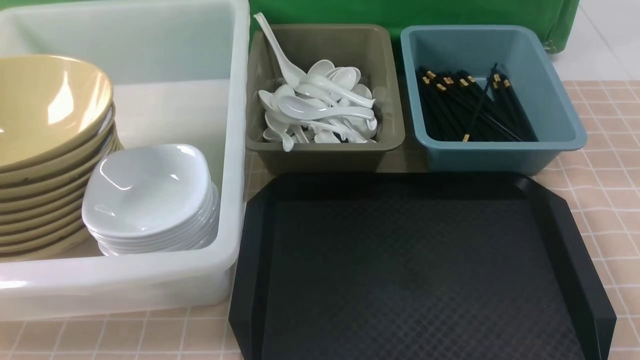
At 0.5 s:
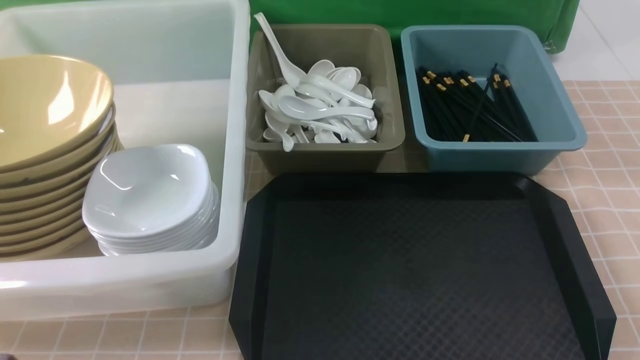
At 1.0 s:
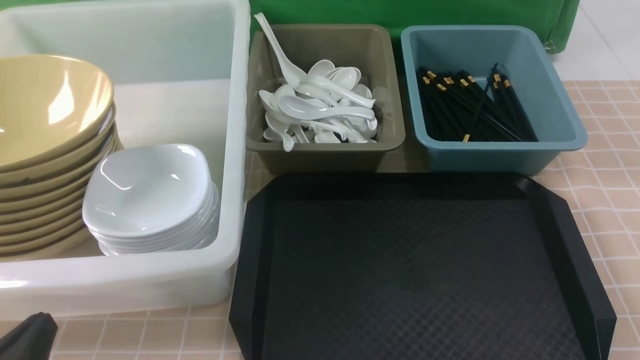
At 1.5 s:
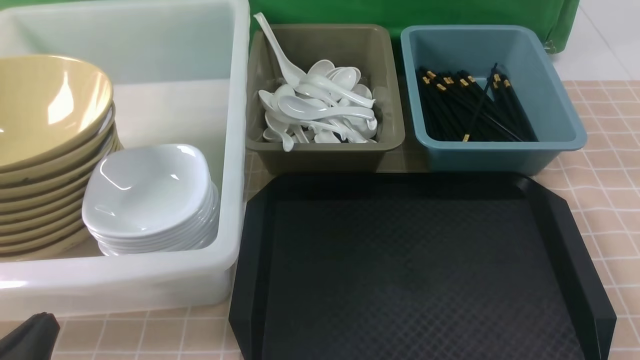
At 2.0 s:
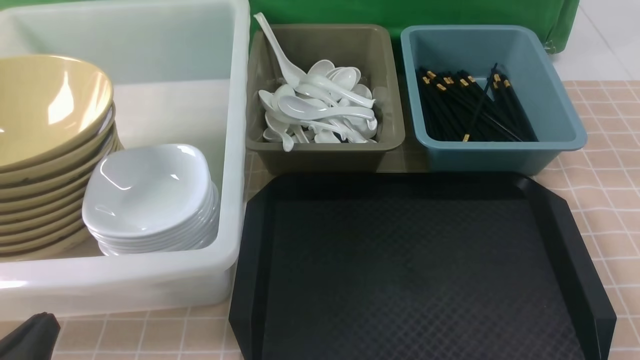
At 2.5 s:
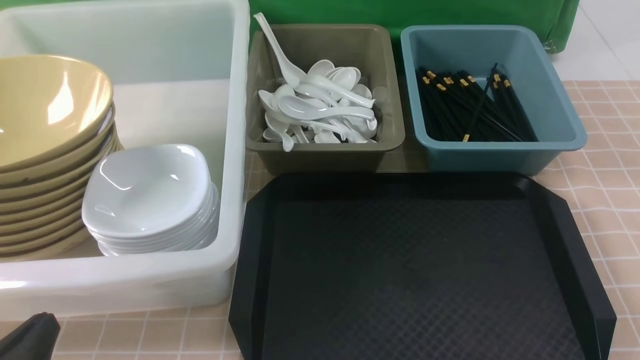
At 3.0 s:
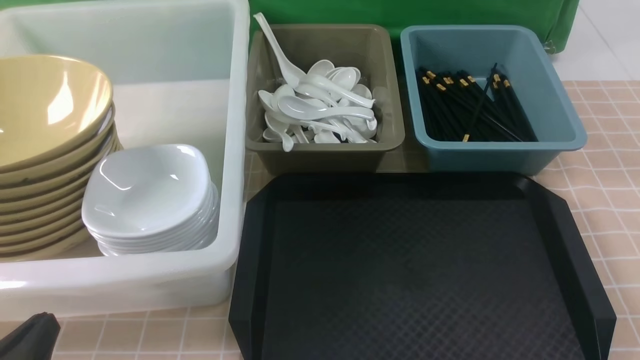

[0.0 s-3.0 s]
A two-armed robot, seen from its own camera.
Task of the whole recording: on brown table put chopsticks spoon bowls plates into blue grey white boxes.
0.0 to 1.5 s: The left gripper is displaced downward by some 10 cm.
1.5 to 3.0 s: Neither gripper changes place.

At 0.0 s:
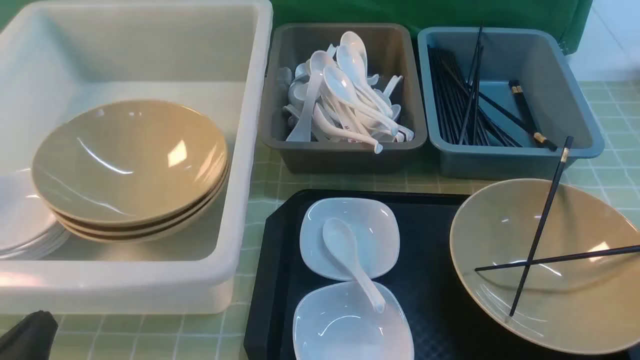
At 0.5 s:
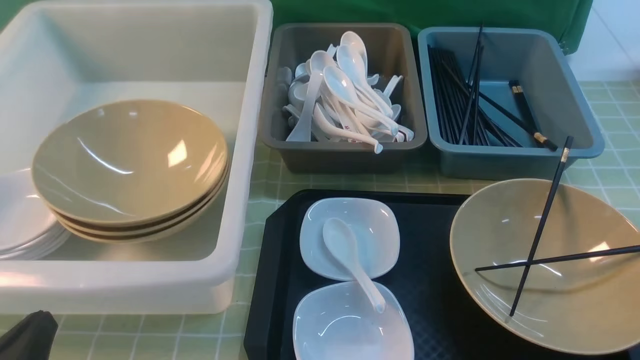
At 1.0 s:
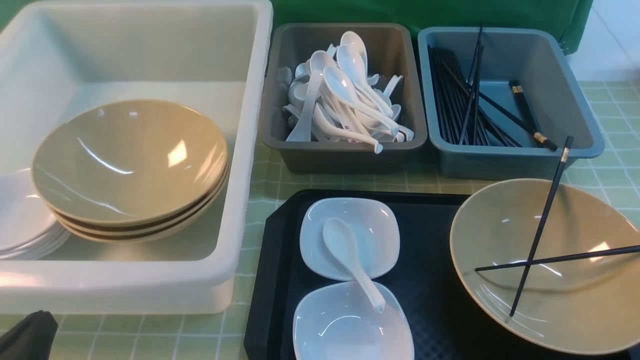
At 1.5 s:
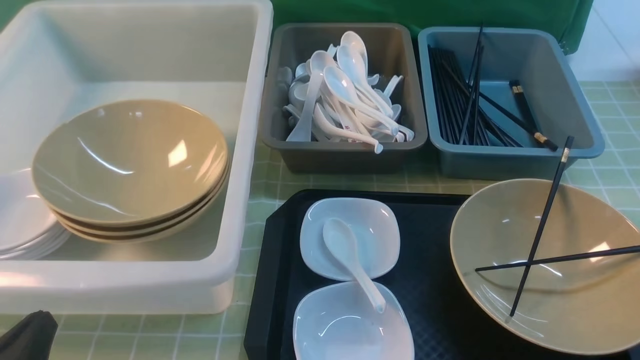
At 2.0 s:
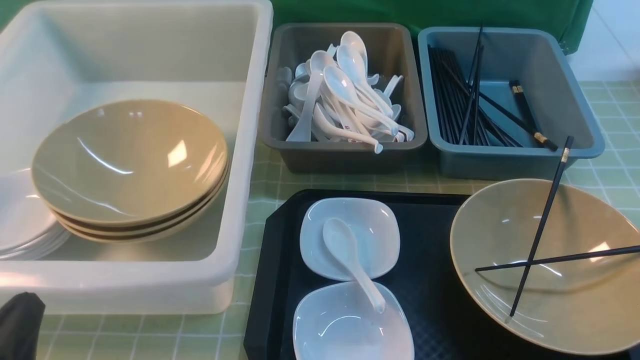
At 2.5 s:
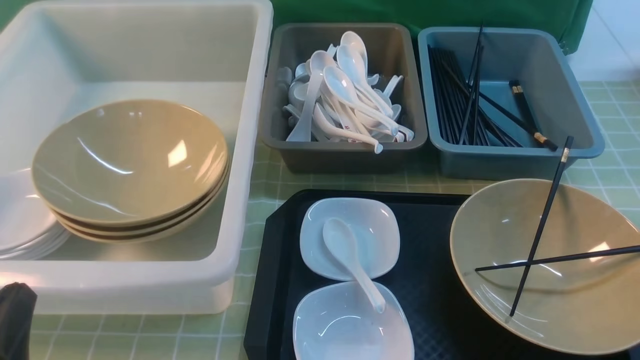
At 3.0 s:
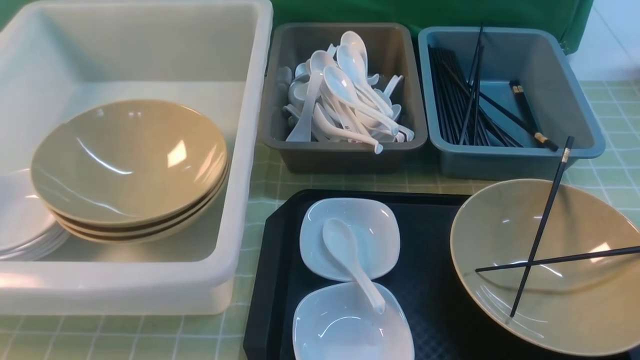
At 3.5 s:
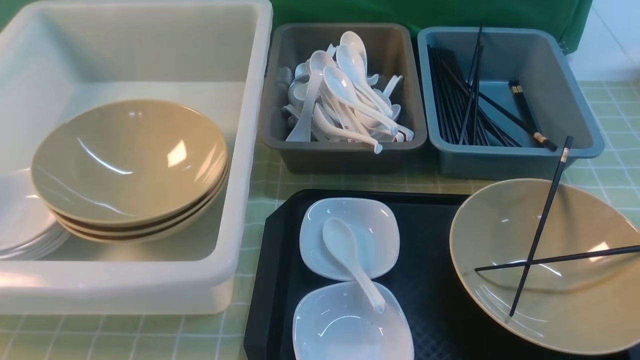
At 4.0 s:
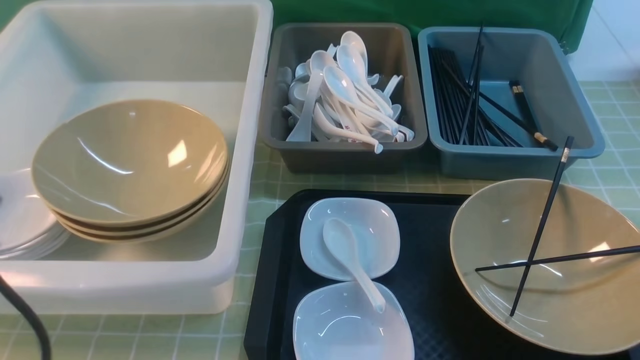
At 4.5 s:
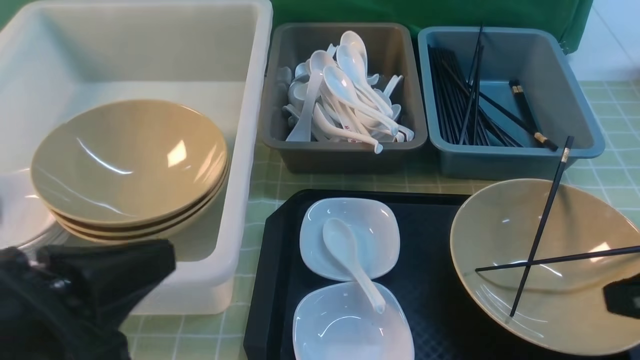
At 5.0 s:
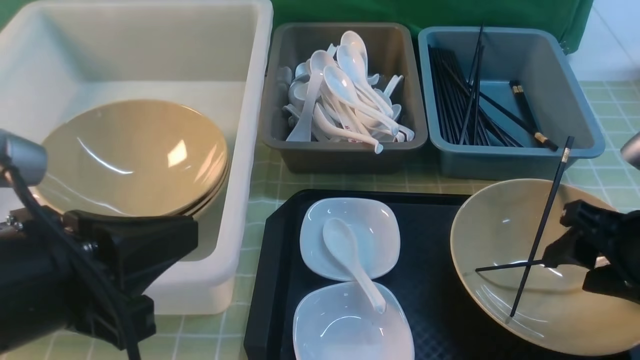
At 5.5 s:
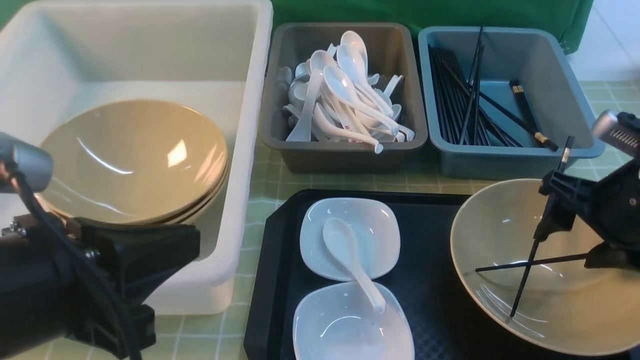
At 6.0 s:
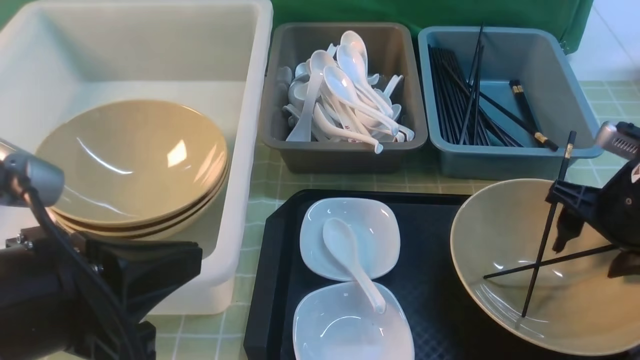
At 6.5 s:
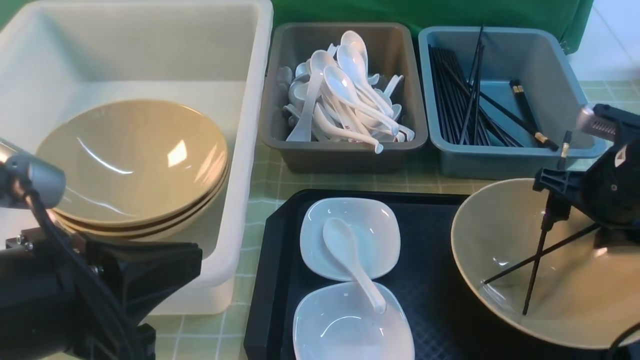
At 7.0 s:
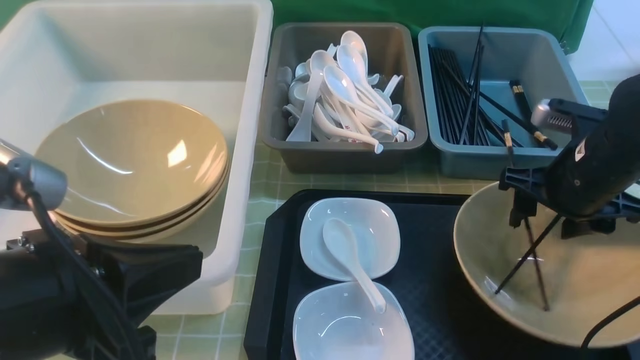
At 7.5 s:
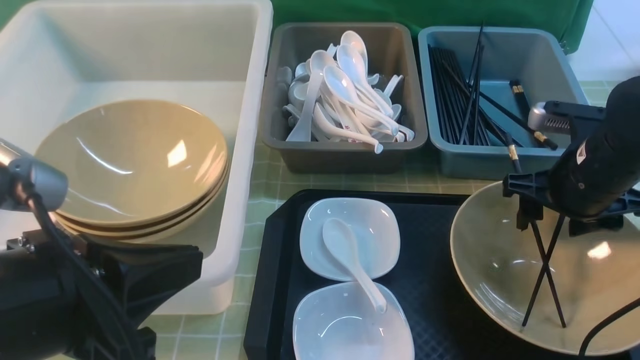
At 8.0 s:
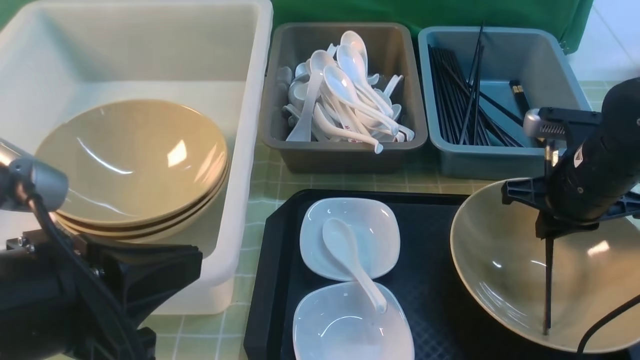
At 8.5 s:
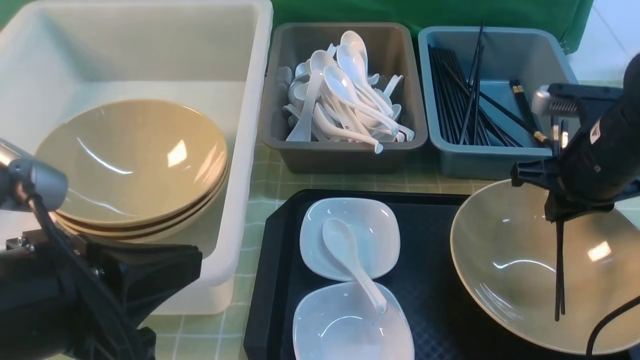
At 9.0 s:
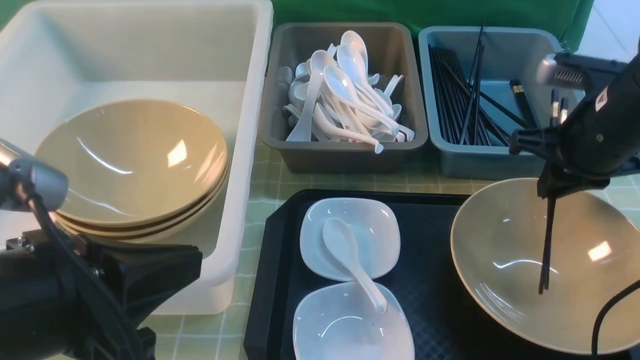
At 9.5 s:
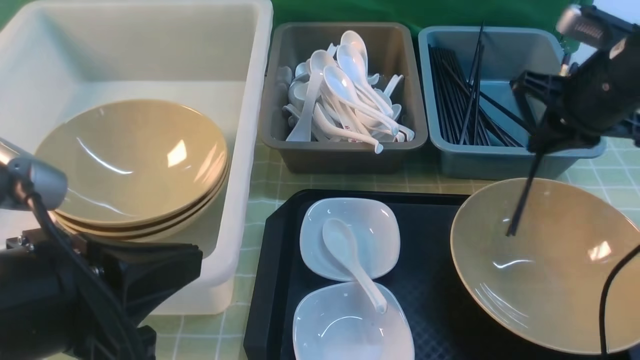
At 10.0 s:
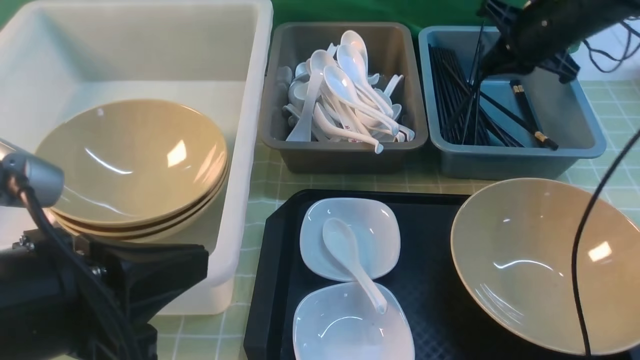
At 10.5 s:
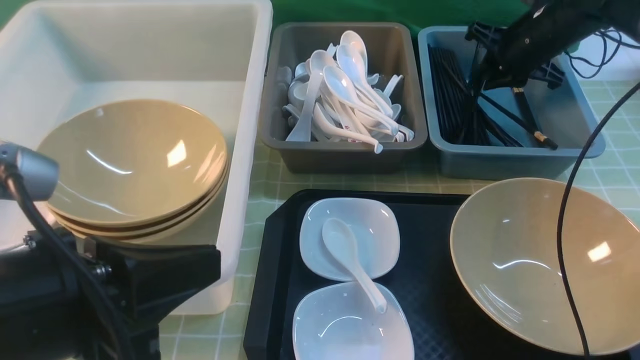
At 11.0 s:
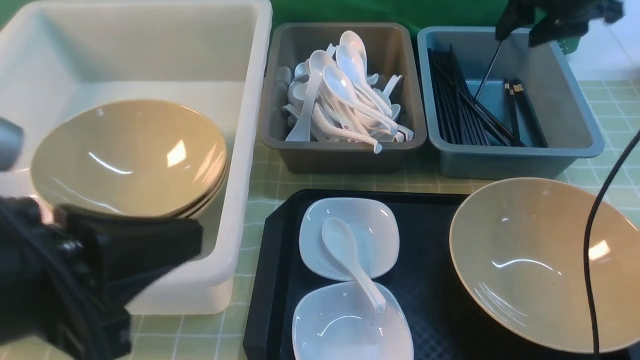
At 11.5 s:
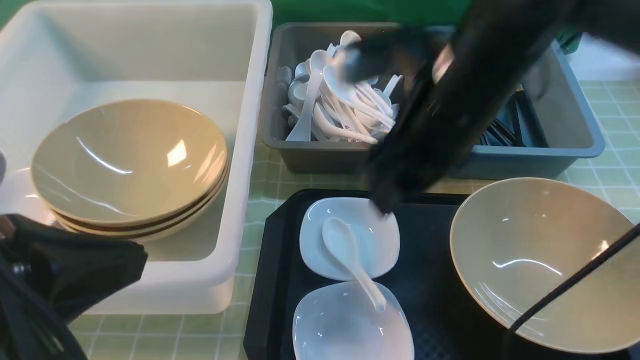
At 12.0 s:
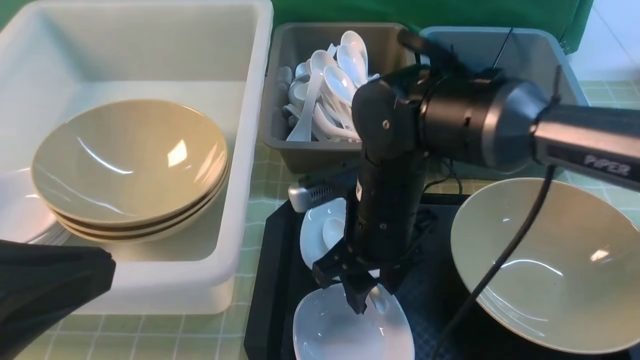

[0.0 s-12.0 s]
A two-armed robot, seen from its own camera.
Task of the whole recording: on green table put chopsticks spoon bowls plates into blue grey white boxes.
Step, 0.0 to 8.0 s: use the right arm to grab the chopsticks.
Step, 8.5 to 11.0 s: use the right arm to put the chopsticks into the small storage box on the right.
2.0 to 4.0 s: The left gripper travels upward by approximately 15 cm.
4.0 to 6.0 s: The right gripper moves forward and downward, roughly 20 cm, and opens up. Meanwhile the left gripper heads to the right, covering roughly 5 cm.
6.0 to 8.0 s: The right gripper closes its fingers.
8.0 to 10.0 s: The right gripper moves forward and upward, approximately 15 cm.
10.0 to 12.0 s: The left gripper travels upward by some 5 cm, while the right gripper is displaced to the left and backward by some 30 cm, and opens up.

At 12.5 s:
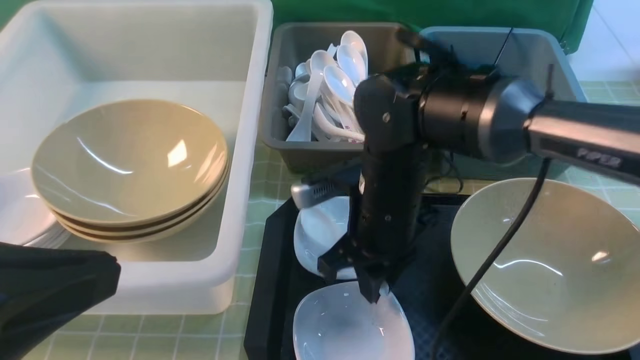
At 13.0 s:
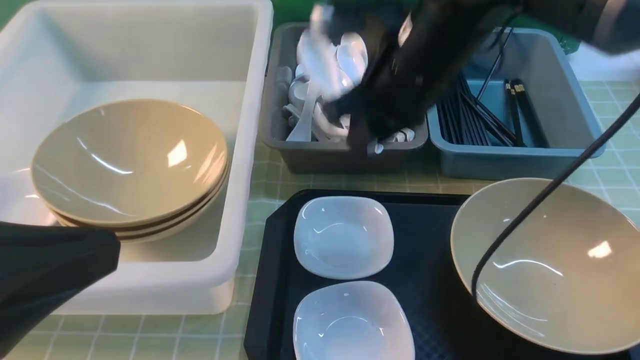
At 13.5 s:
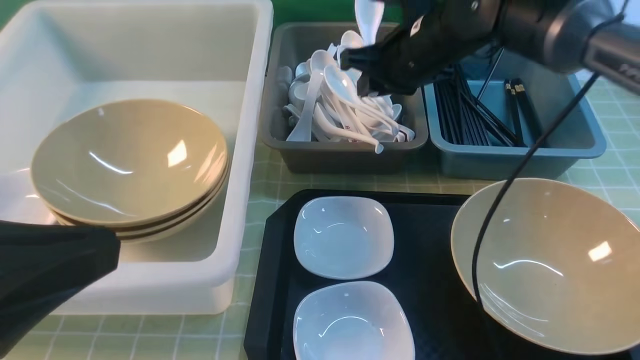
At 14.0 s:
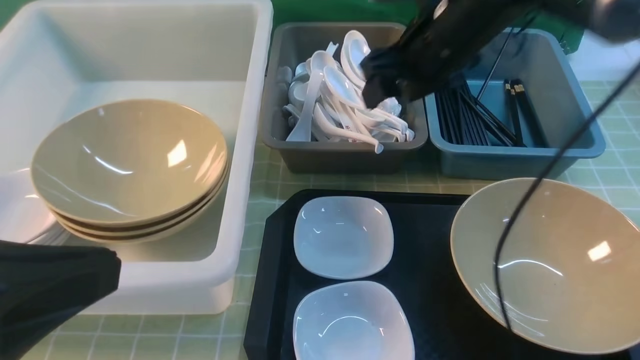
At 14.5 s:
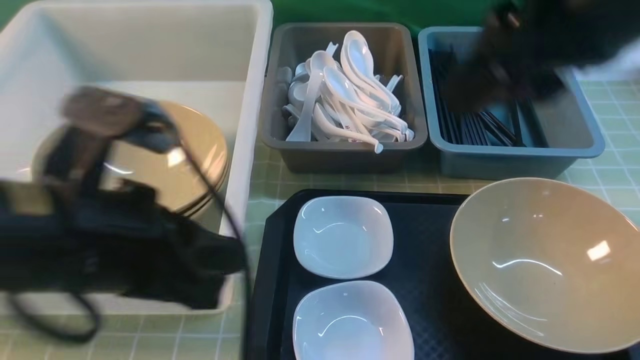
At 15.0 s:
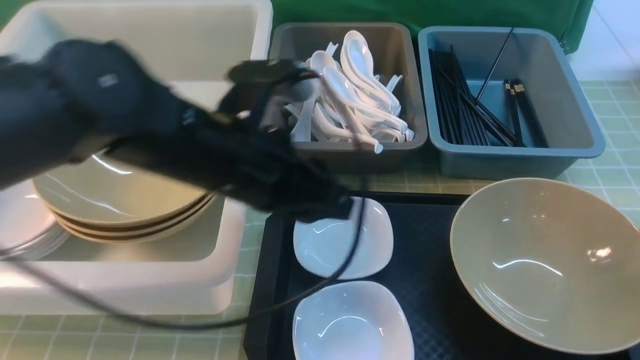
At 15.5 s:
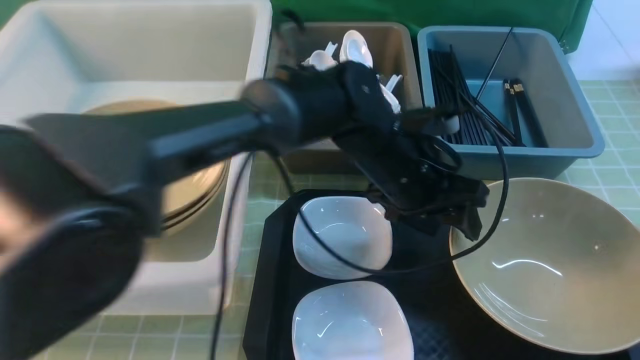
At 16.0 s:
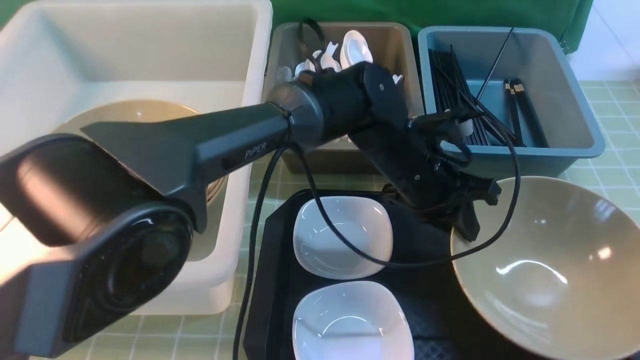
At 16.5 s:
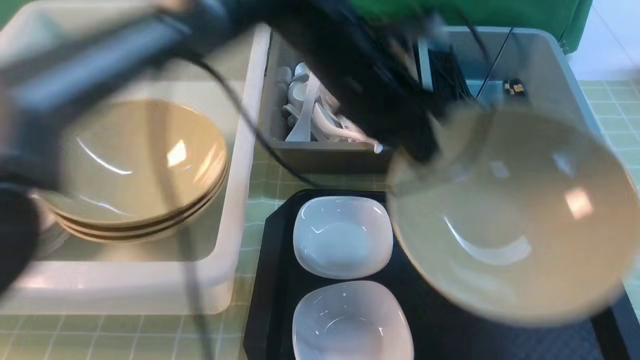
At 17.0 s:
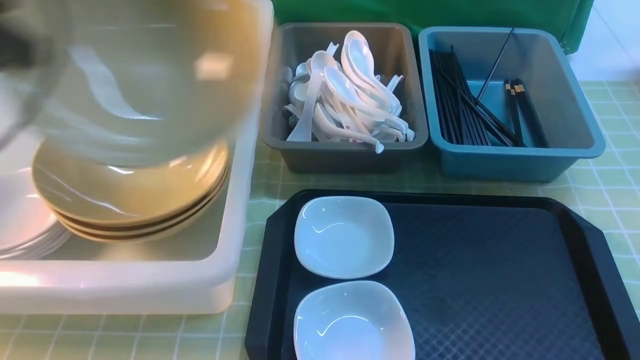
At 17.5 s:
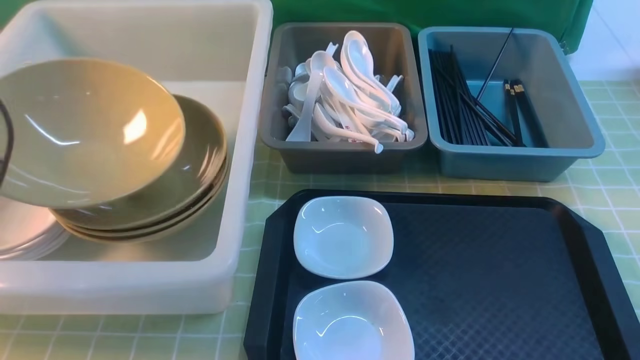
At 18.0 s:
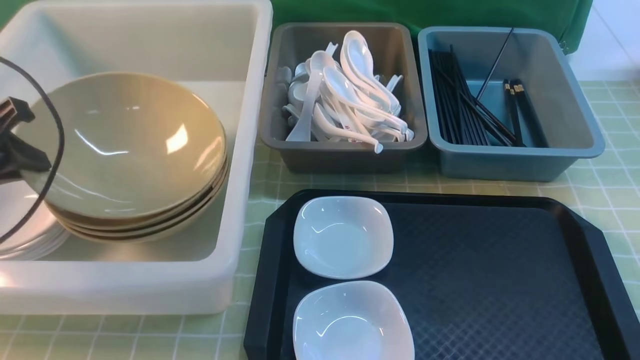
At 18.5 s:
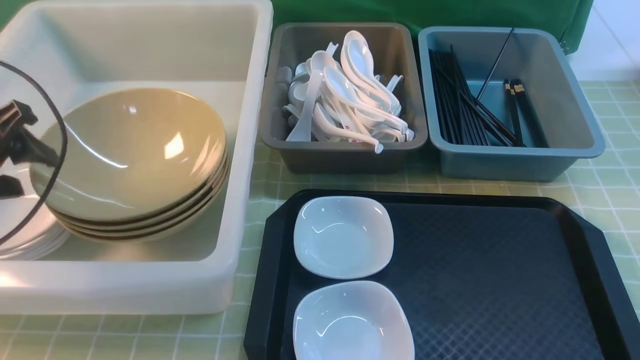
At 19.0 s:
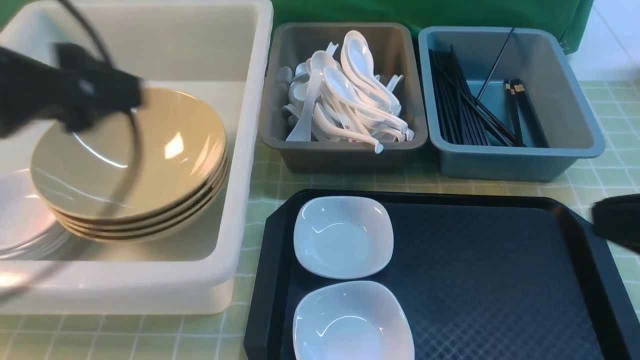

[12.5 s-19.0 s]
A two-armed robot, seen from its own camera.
Task of the whole recording: on green table put chopsticks spoon bowls plates into blue grey white boxes.
Step, 13.0 to 13.5 s: use the right arm to put the soup spoon into the small storage box in the middle.
Step, 14.0 to 16.0 s: use the left arm to grab the yellow noodle bowl on the left.
Step, 16.5 to 18.5 s: use the left arm to put the noodle bowl into the large storage box on the left.
12.5 to 14.5 s: The left gripper is displaced forward and to the right by roughly 10 cm; the right gripper goes about 25 cm upward, to the right and backward, and opens, then closes again.
14.5 to 17.0 s: The left gripper moves to the left and forward, about 20 cm, and opens, then closes again, while the right gripper moves backward and to the right, about 20 cm, and closes its fingers.
17.0 to 19.0 s: The right gripper travels forward by approximately 5 cm; the left gripper travels to the right and backward by roughly 10 cm, and opens.
